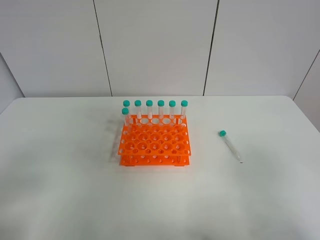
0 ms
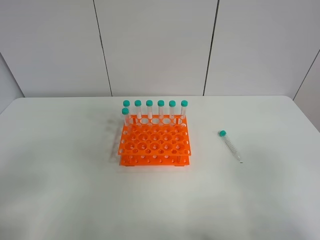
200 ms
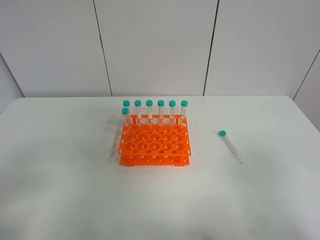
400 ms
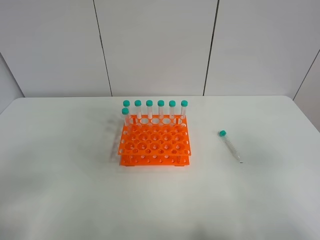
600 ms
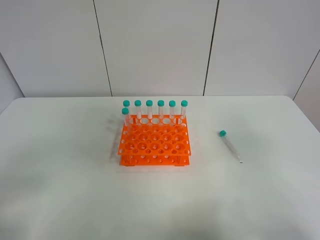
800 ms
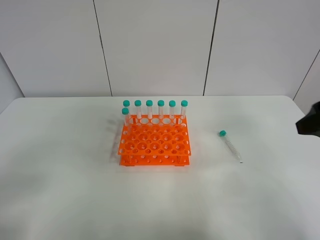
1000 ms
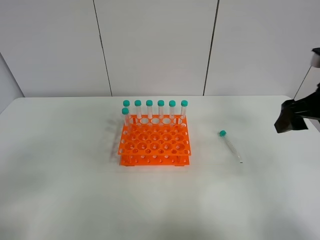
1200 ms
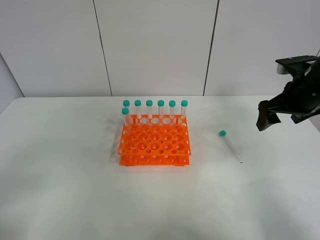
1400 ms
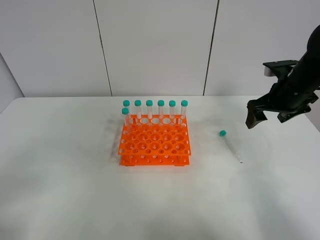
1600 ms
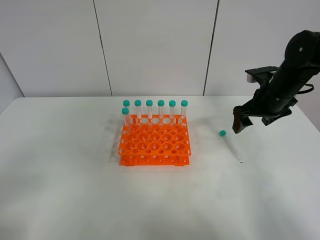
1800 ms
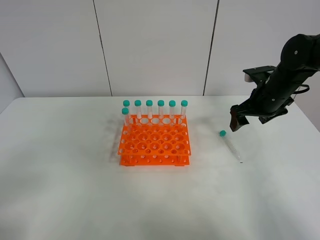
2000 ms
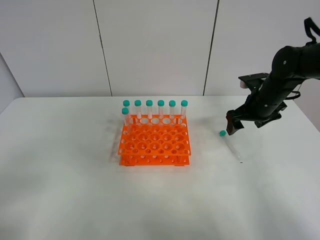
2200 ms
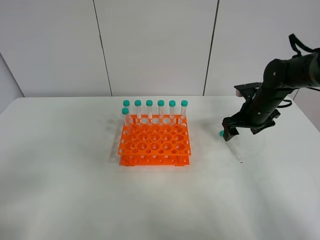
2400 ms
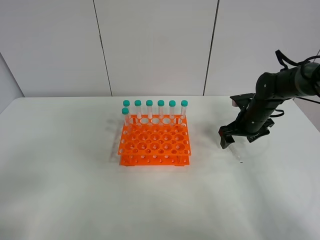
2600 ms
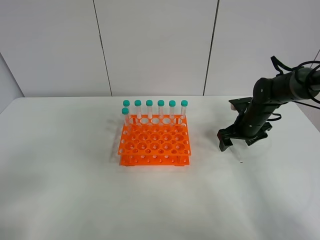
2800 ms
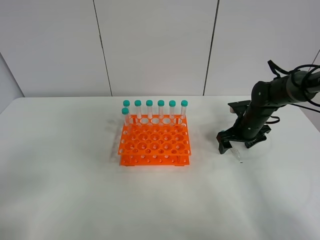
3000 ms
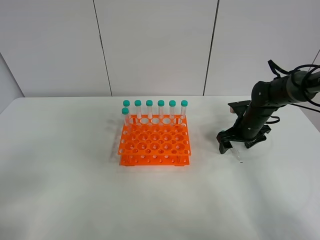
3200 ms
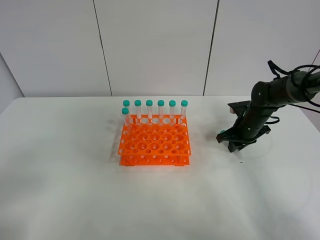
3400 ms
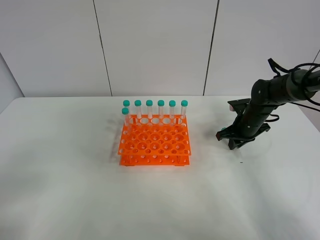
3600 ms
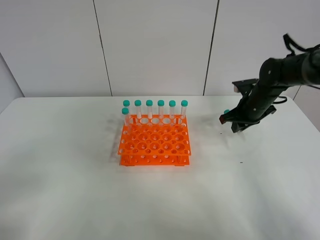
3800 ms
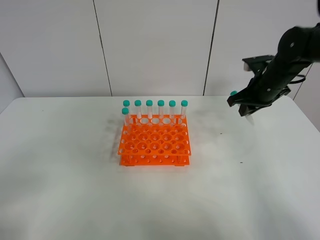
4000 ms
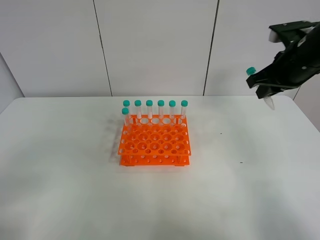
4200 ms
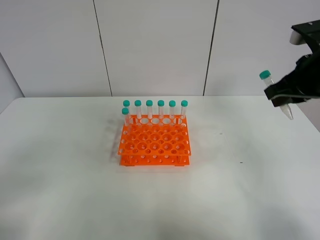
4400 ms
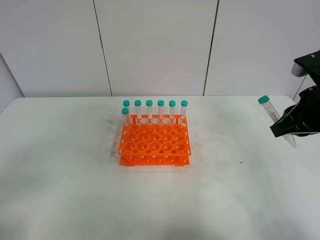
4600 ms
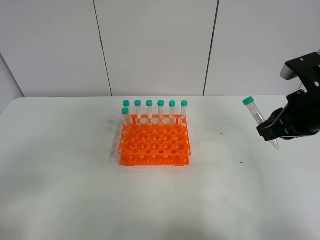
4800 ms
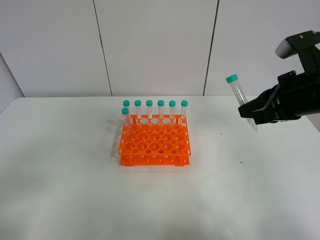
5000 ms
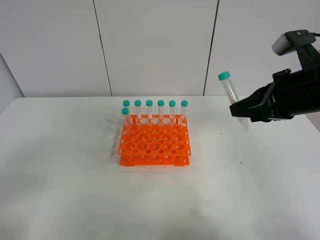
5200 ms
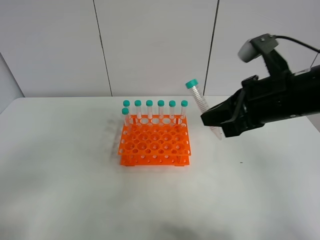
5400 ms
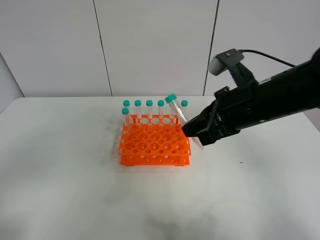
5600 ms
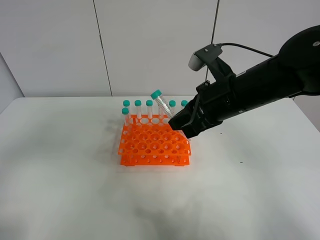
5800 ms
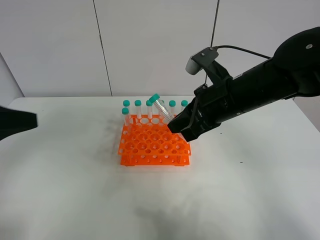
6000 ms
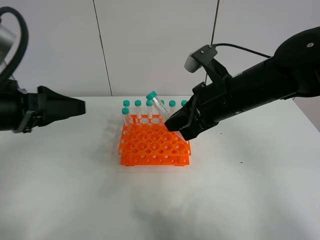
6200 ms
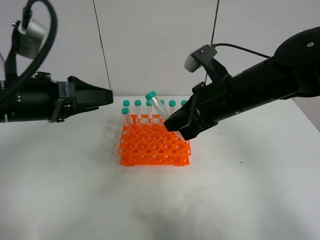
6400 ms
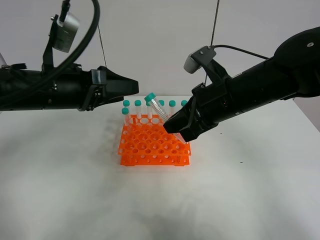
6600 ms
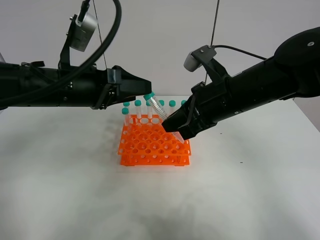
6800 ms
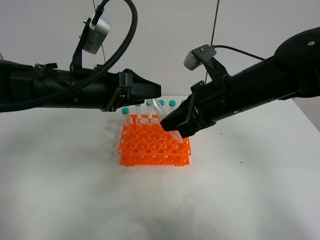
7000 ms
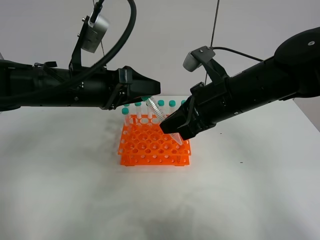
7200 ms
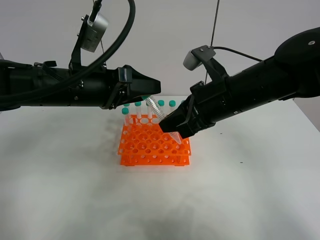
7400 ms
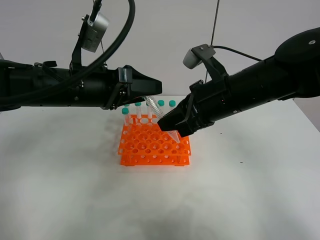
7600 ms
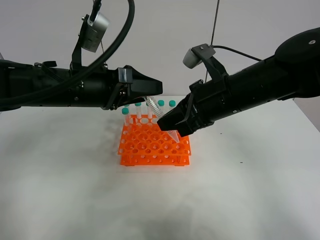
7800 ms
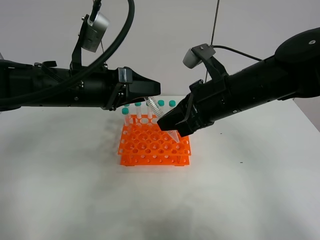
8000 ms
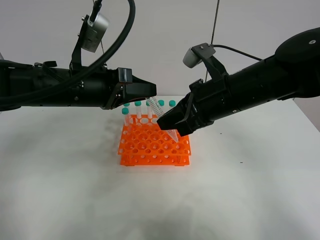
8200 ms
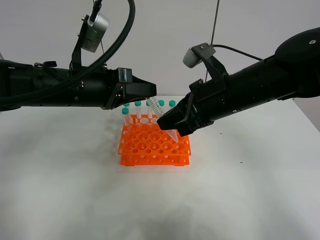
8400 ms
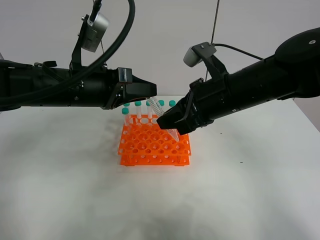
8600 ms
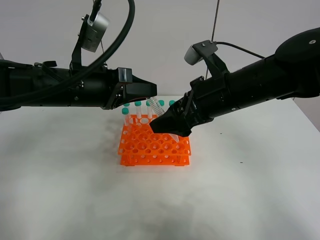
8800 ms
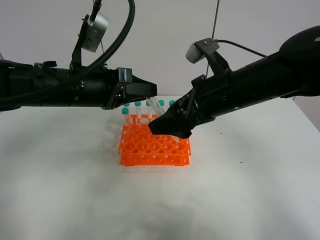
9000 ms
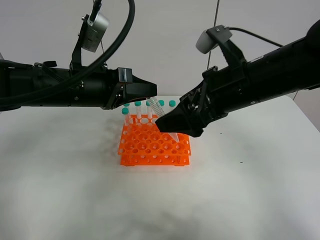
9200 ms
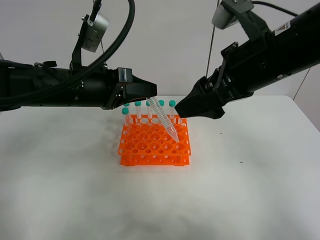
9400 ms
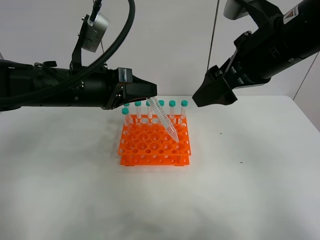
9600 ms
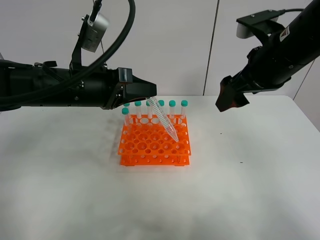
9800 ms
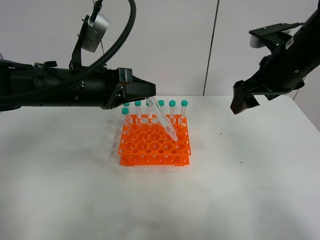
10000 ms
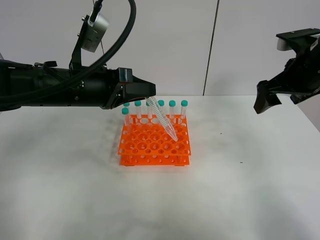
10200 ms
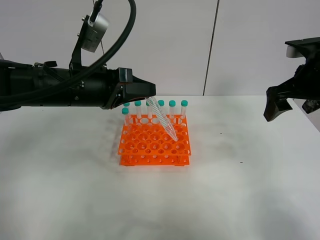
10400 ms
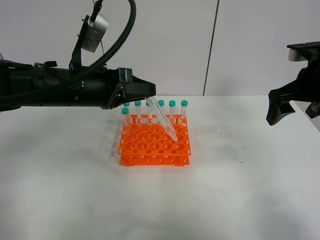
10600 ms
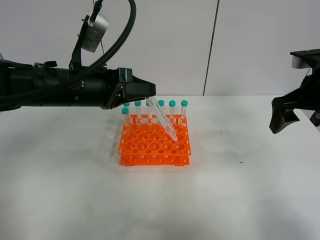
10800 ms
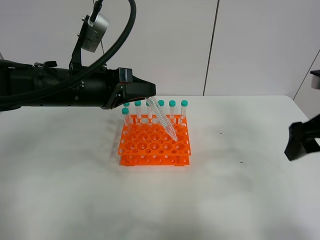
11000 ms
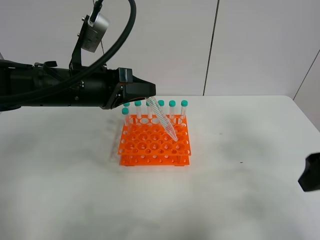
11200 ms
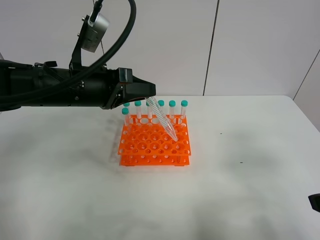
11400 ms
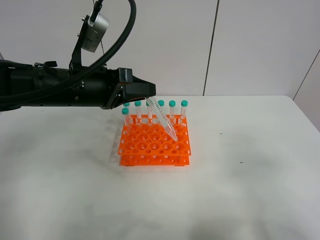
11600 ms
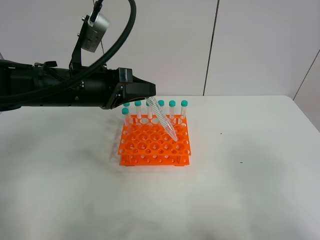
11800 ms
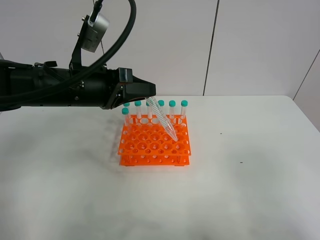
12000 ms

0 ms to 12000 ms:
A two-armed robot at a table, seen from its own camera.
Task of the whole recording: Put the test tube on the table back onto the test tube rack.
Step, 0 ms to 3600 ms: Pick up the test tube with the right gripper.
Step, 3800 ms to 8800 ms: Move the test tube from the right gripper to the left gripper.
0 ms to 1600 ms: The right gripper is displaced forward by some 35 cm.
1600 ms to 3000 ms: The right gripper goes about 15 cm downward.
3000 ms to 4400 ms: The right gripper moves upward and backward, some 25 cm, and closes.
4400 ms to 6000 ms: The left gripper goes roughly 15 cm forward; the right gripper moves to the left, roughly 15 cm.
6000 ms to 7600 ms: The left gripper heads to the right and forward, covering approximately 20 cm.
7600 ms to 9000 ms: The left gripper closes; the right gripper opens its fingers.
9000 ms to 10400 ms: The right gripper is displaced to the right by some 15 cm.
10400 ms to 12000 ms: The right gripper travels backward by some 30 cm.

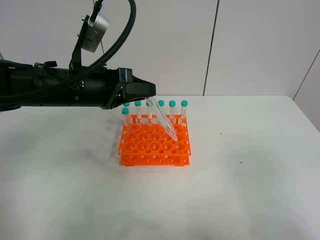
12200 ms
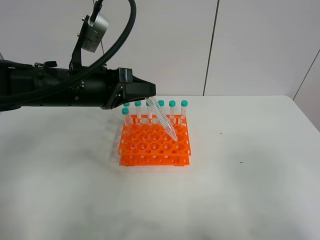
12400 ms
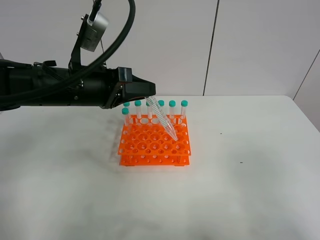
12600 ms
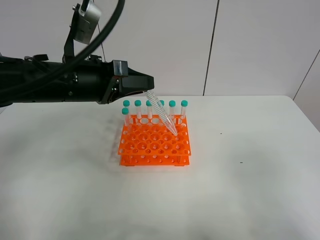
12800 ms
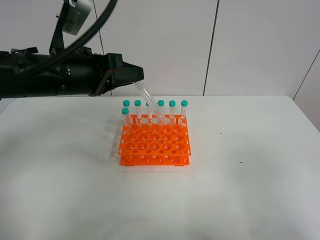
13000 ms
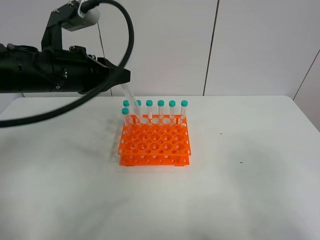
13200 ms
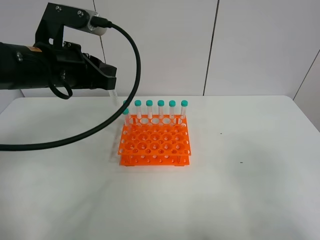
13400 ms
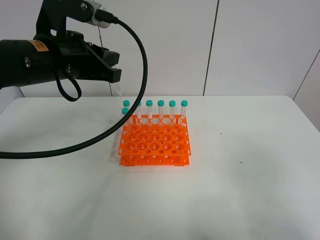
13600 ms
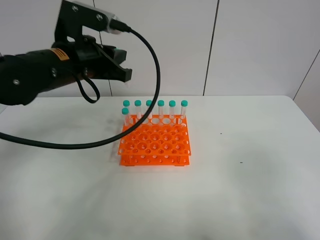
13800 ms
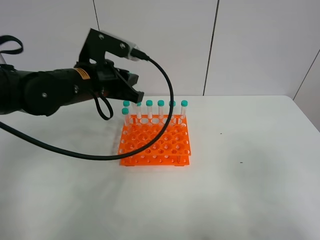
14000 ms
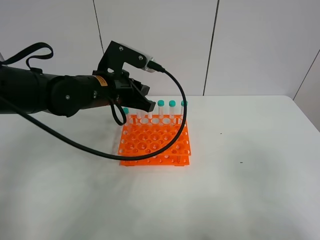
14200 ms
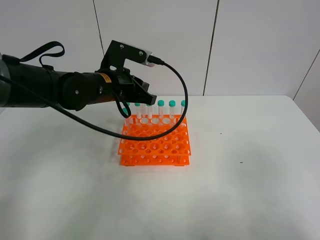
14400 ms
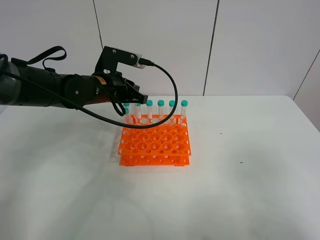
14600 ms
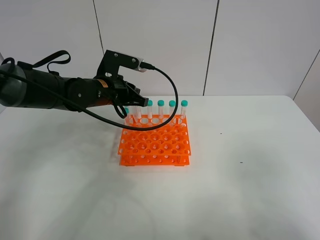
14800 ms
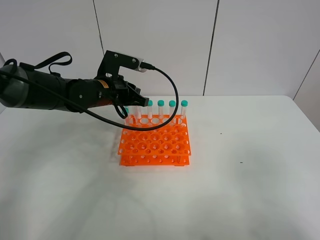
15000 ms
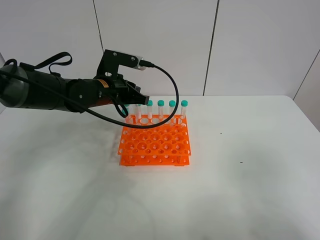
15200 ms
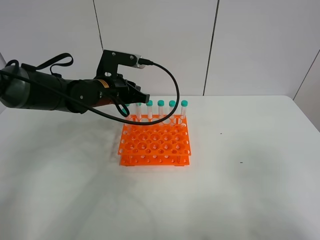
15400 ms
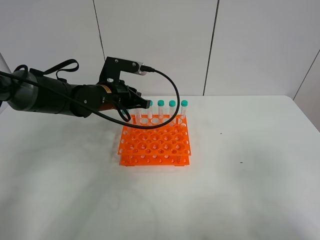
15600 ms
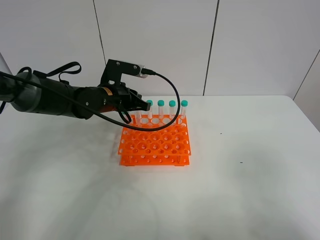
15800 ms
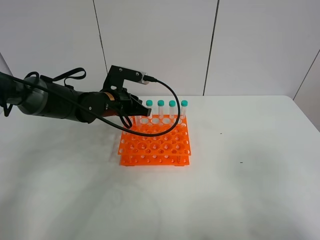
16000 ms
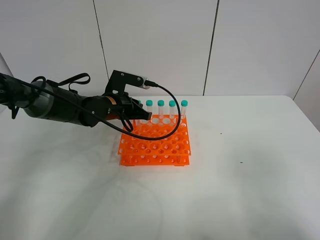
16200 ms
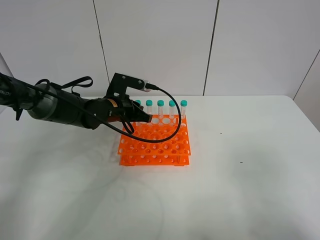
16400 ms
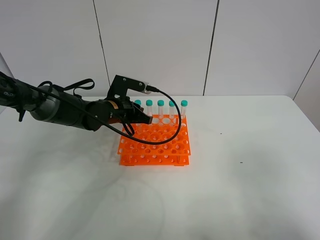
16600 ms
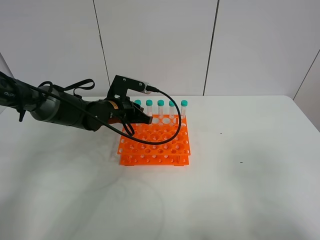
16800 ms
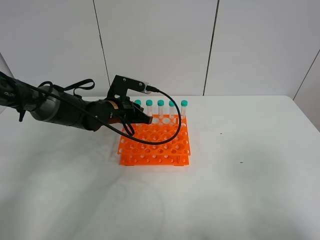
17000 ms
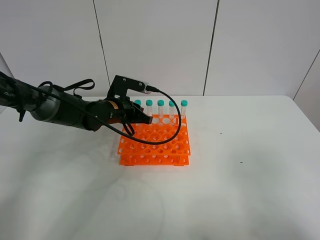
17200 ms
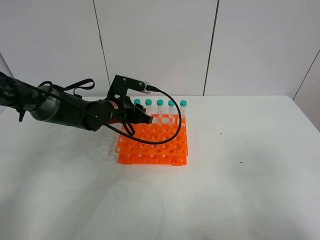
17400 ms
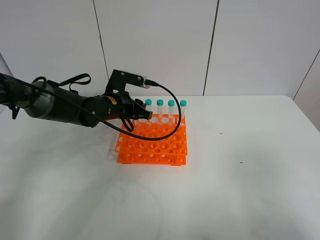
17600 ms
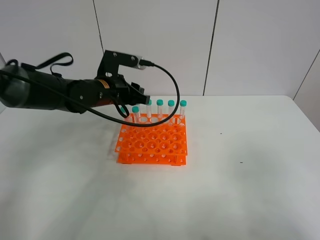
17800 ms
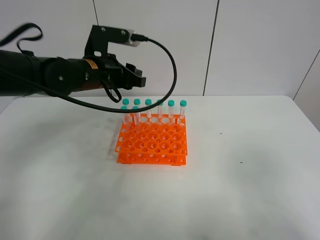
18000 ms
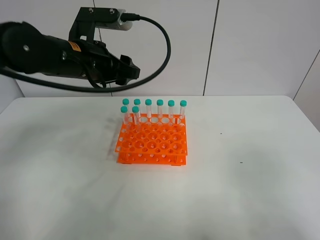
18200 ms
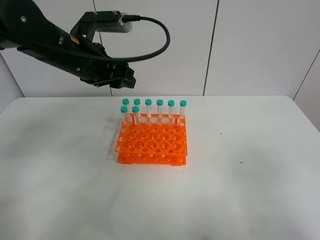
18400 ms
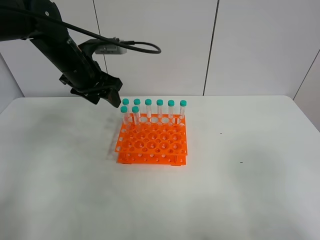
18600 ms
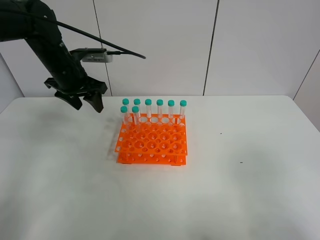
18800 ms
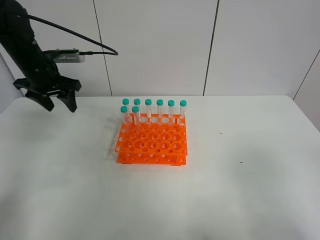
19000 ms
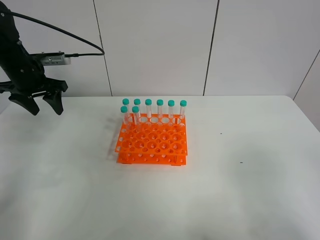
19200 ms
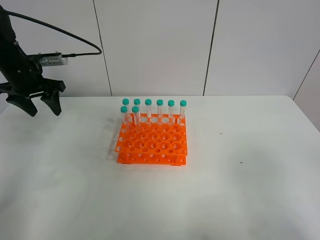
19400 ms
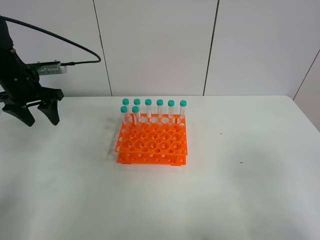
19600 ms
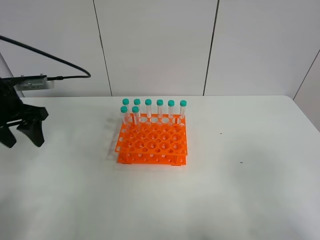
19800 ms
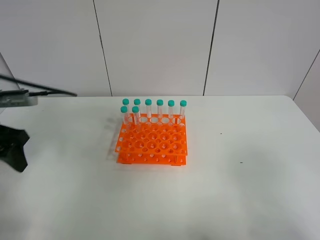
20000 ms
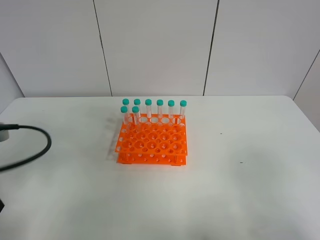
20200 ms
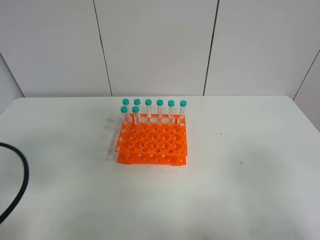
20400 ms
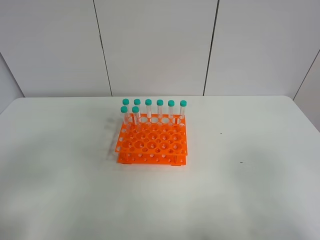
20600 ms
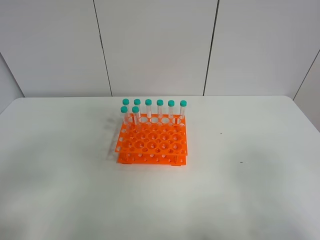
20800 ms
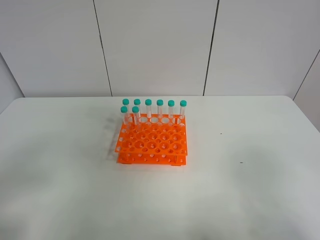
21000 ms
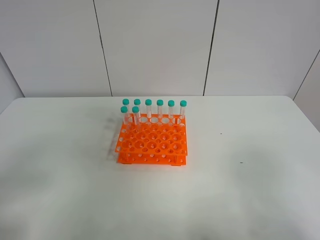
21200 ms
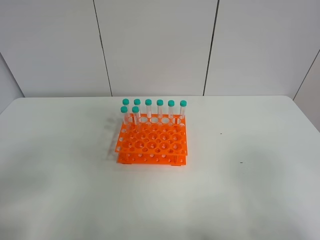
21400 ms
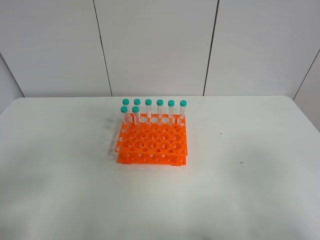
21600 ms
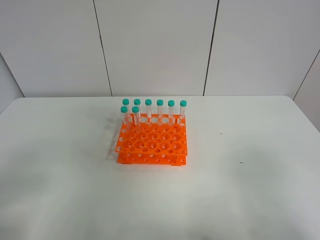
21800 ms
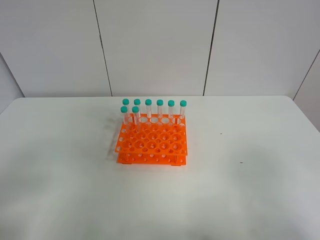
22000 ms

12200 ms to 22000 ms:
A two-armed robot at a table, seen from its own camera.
Task of the whole recording: Put the test tube on the table back onto the test tube rack.
Step, 12200 ms to 17600 ms: Place the test tube on the test tube rack with the left gripper.
12200 ms to 13600 ms: The left gripper shifts approximately 5 cm upward.
13600 ms to 15000 ms: The left gripper moves downward and forward, roughly 15 cm.
15000 ms to 16400 ms: The left gripper is displaced downward by about 5 cm.
16400 ms to 17800 ms: The left gripper heads upward, covering approximately 5 cm, and opens up.
17800 ms to 19200 ms: The left gripper is displaced to the left by about 20 cm, and opens.
19200 ms to 20600 ms: The left gripper heads backward, covering some 35 cm.
